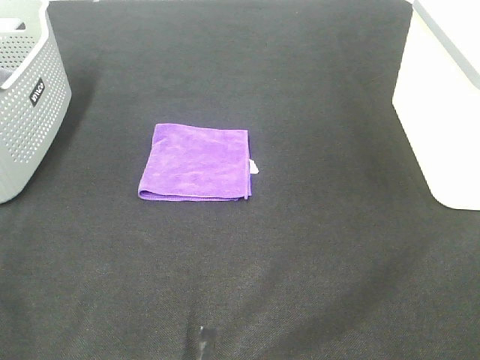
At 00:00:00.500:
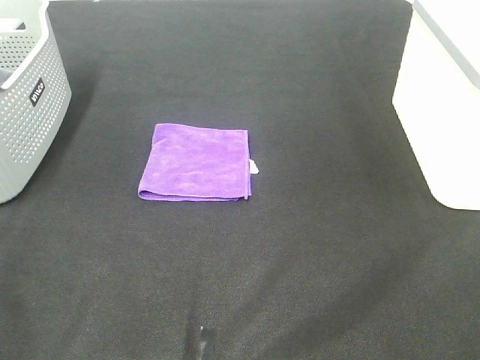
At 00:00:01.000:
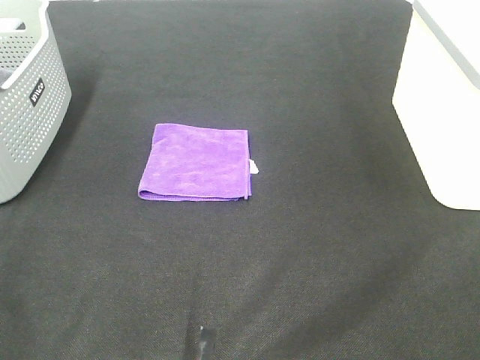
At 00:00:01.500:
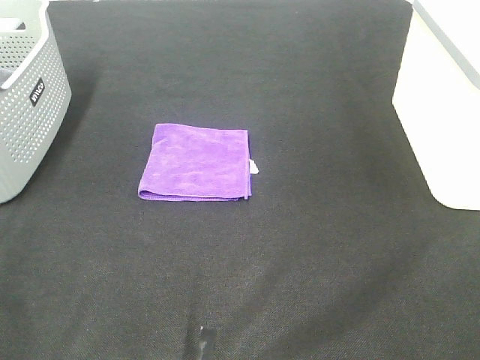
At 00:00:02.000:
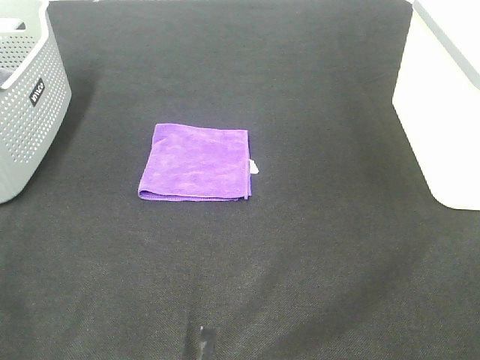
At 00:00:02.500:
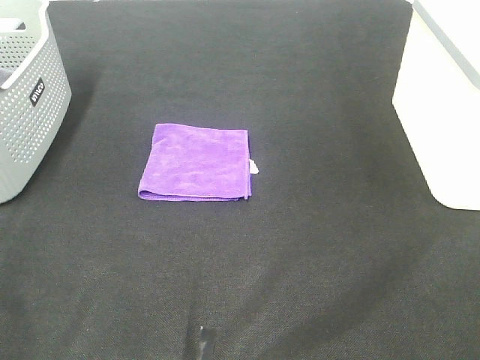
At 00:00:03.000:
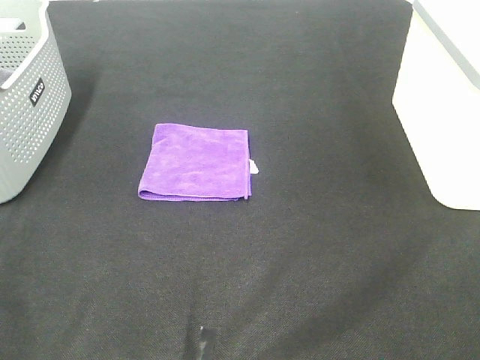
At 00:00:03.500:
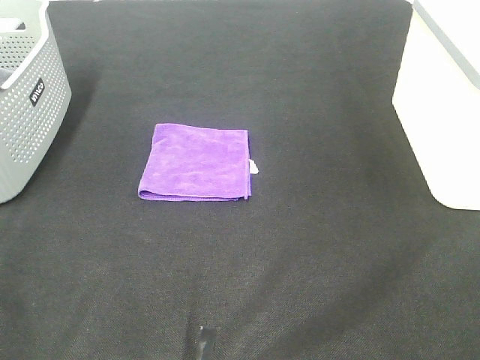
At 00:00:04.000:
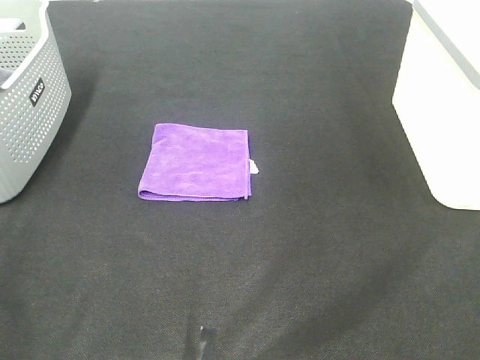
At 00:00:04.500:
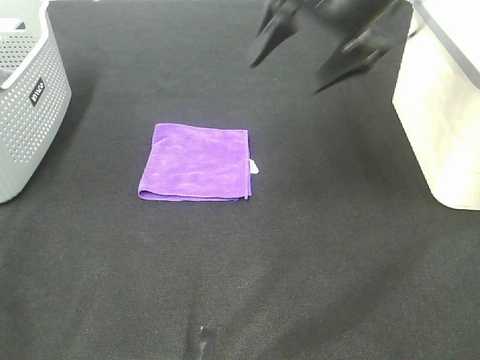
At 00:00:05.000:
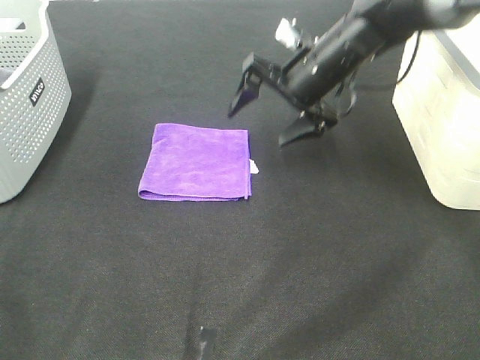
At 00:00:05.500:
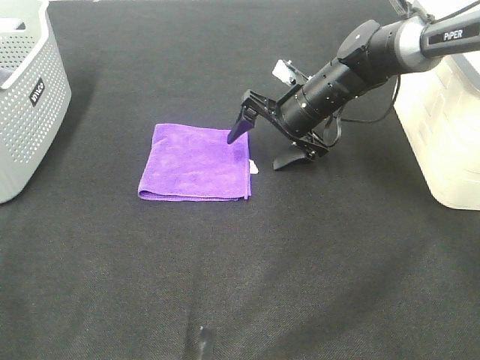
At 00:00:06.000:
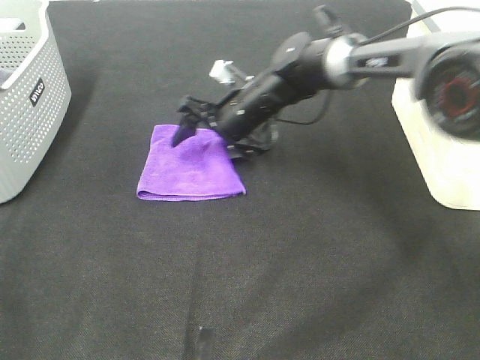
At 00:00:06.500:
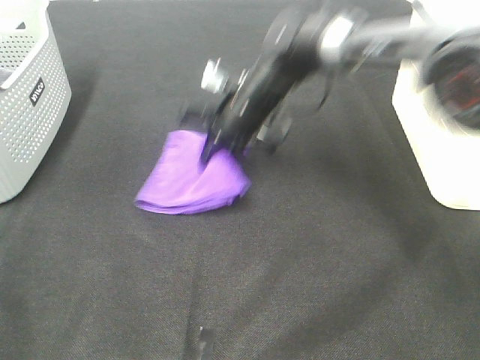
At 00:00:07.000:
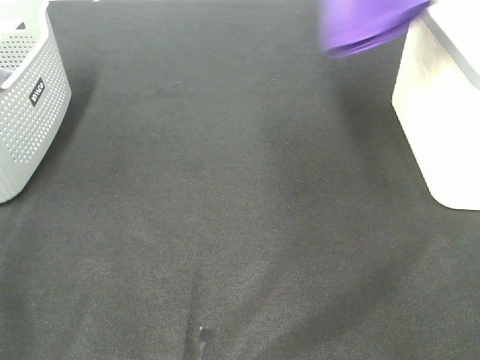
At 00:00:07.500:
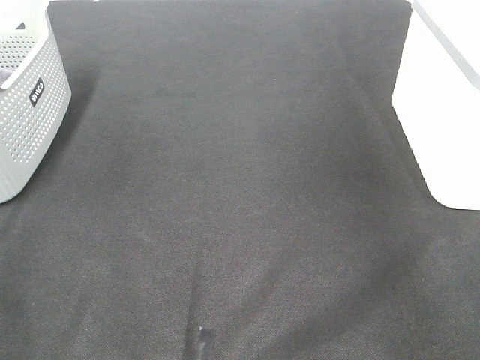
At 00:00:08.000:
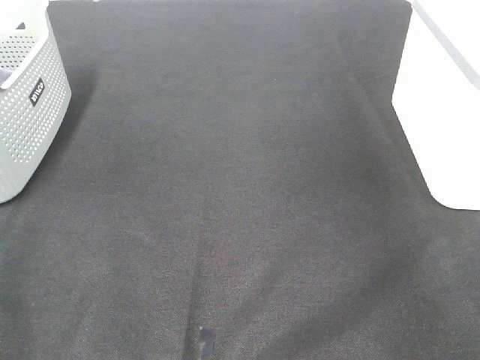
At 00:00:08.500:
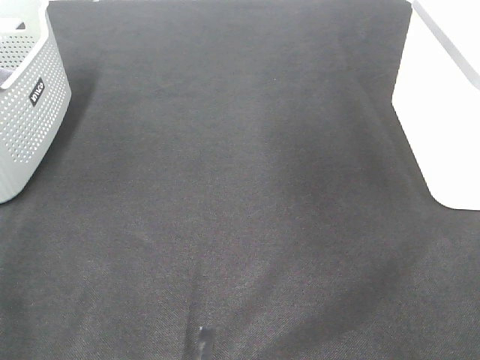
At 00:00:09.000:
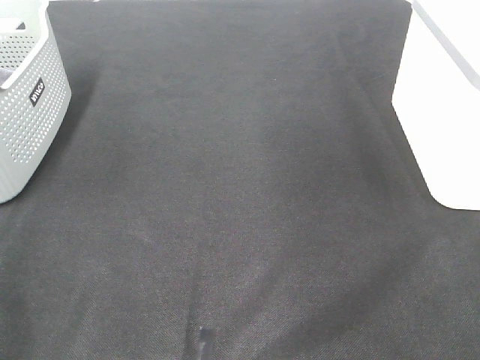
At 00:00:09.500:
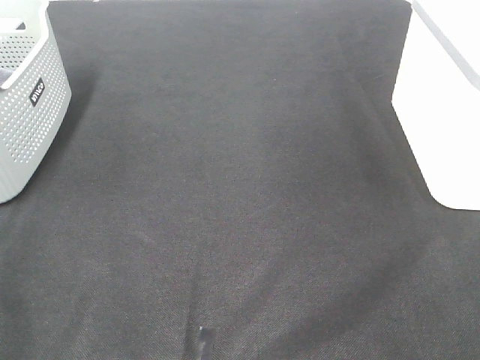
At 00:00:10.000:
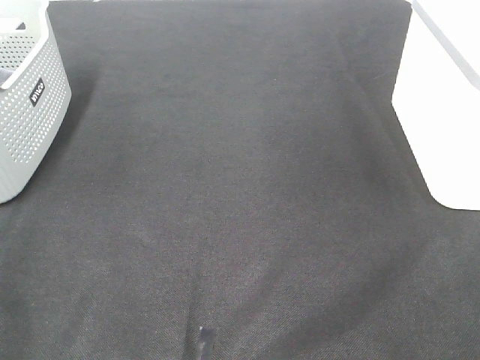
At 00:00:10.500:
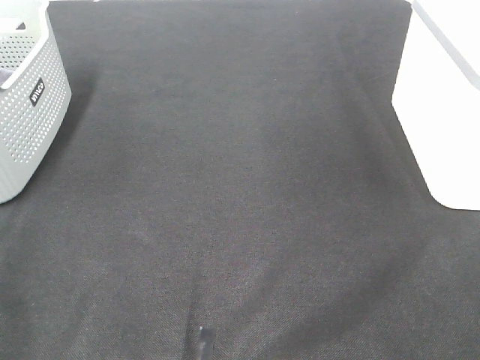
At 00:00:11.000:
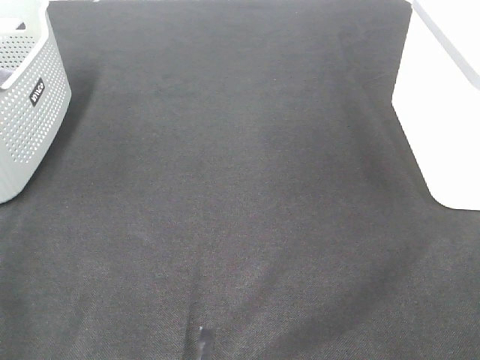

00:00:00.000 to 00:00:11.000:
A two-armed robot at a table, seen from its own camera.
Step, 00:00:00.000 to 00:00:06.000: Right hand: grab the folded purple towel.
Step, 00:00:06.500 to 00:00:07.500: Right hand: place the purple towel in right basket.
00:00:00.000 to 00:00:02.000: Both grippers stay put.
00:00:03.500 to 00:00:05.500: The right gripper moves forward, downward and to the left, some 50 cm.
00:00:05.500 to 00:00:07.500: The right gripper goes approximately 40 cm to the right and upward, and closes up.

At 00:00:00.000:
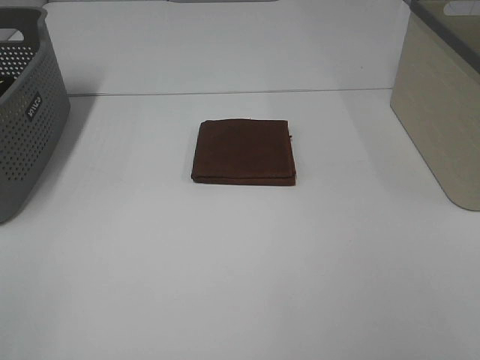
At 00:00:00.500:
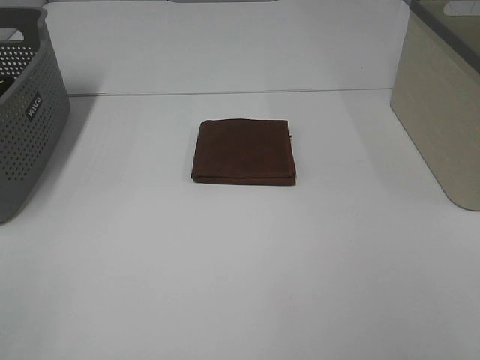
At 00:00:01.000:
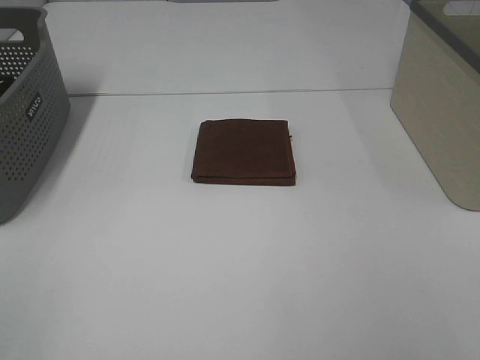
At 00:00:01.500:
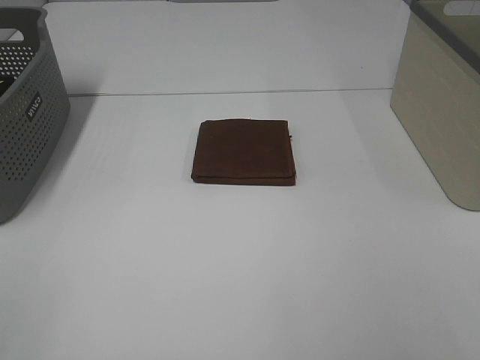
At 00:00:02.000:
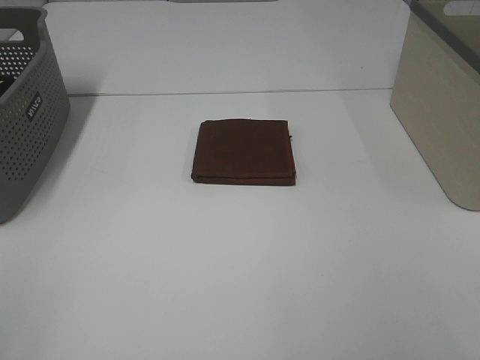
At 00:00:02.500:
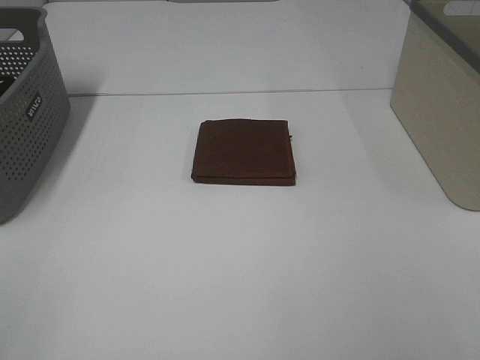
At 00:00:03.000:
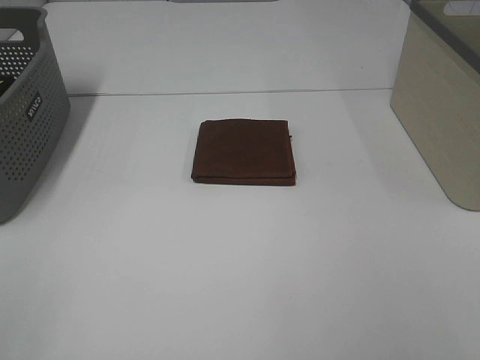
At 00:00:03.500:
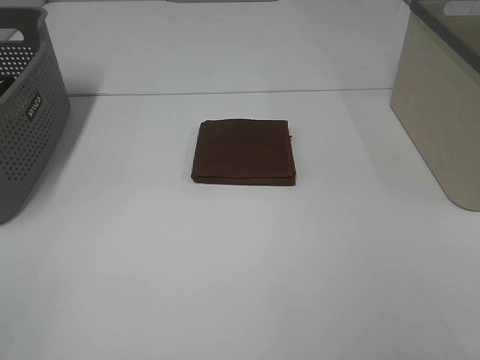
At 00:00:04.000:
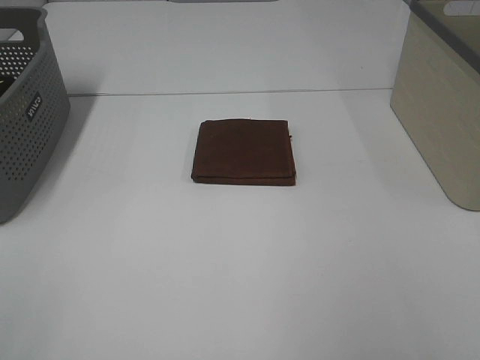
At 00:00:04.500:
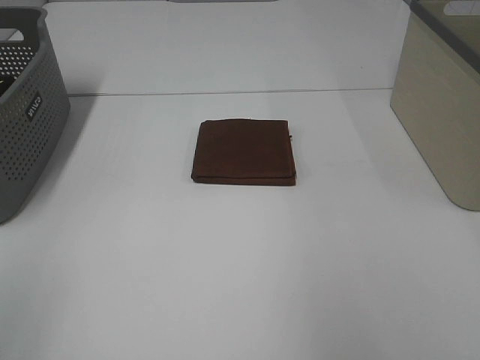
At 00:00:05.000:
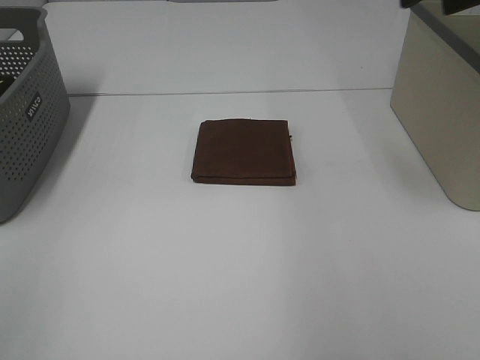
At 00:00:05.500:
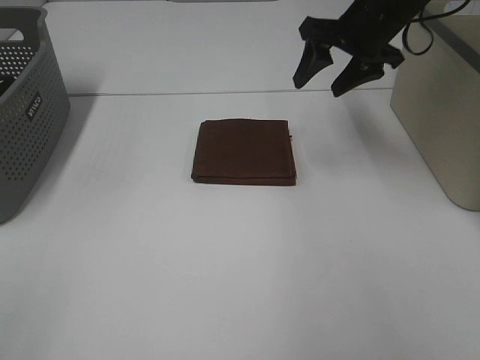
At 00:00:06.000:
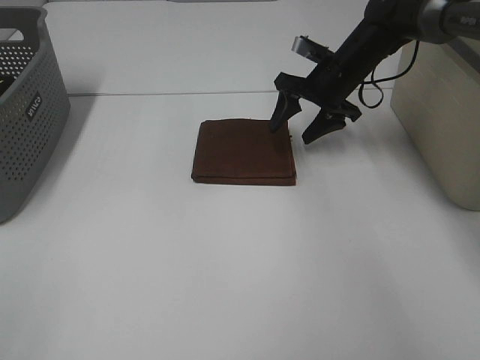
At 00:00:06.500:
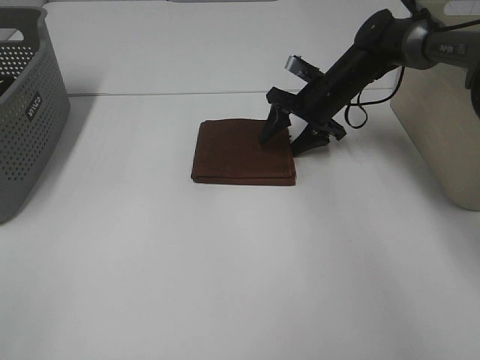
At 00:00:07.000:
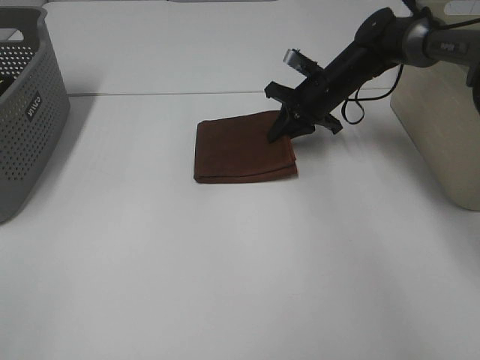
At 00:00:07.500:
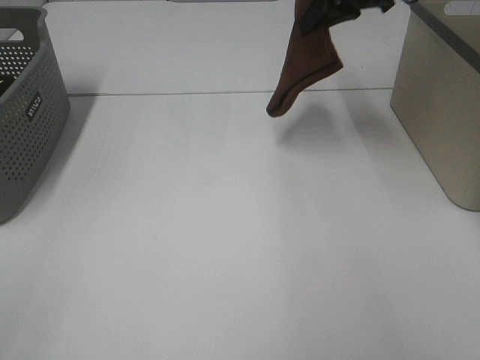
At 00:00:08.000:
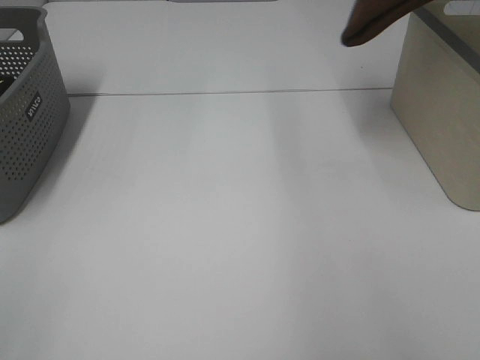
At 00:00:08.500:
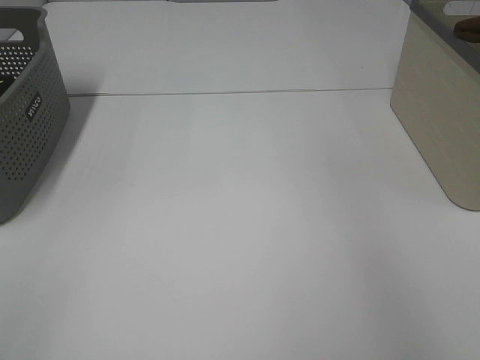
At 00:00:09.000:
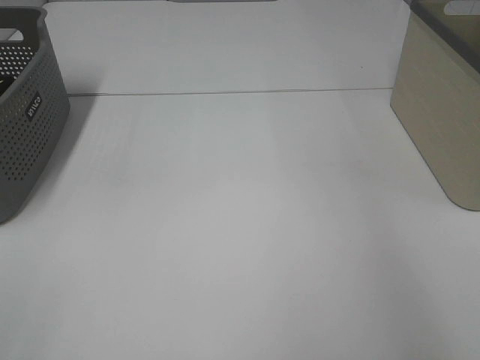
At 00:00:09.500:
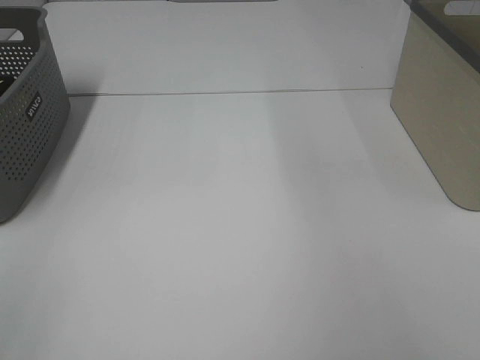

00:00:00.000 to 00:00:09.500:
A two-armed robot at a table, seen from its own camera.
Step, 00:00:00.000 to 00:00:06.500: Right hand: grab the folded brown towel.
Step, 00:00:07.000 to 00:00:09.000: Right hand: place the brown towel in right basket.
00:00:00.000 to 00:00:02.000: Both grippers stay put.
00:00:04.000 to 00:00:05.500: The right gripper is displaced forward by approximately 40 cm.
00:00:05.500 to 00:00:07.500: The right gripper reaches some 15 cm downward, then returns, and closes up.
00:00:07.500 to 00:00:09.500: The right gripper is displaced to the right, upward and backward by some 15 cm, and opens up.

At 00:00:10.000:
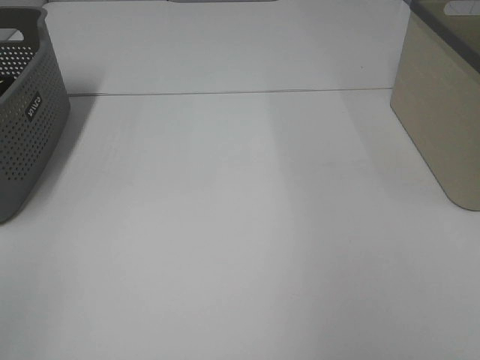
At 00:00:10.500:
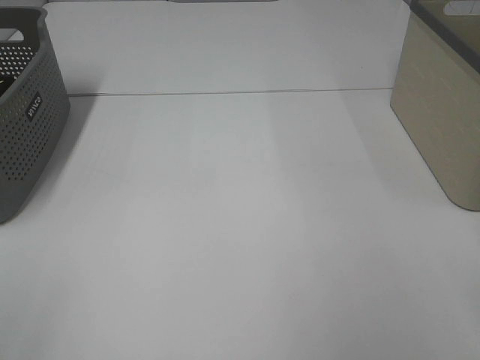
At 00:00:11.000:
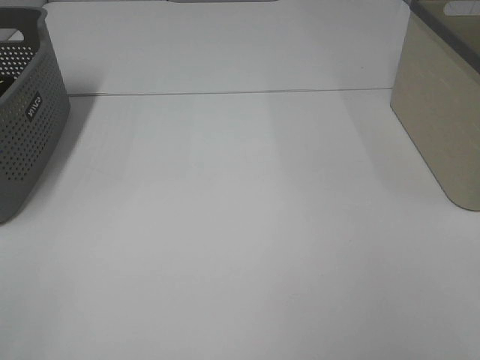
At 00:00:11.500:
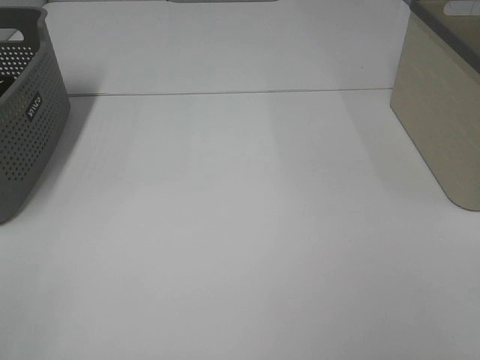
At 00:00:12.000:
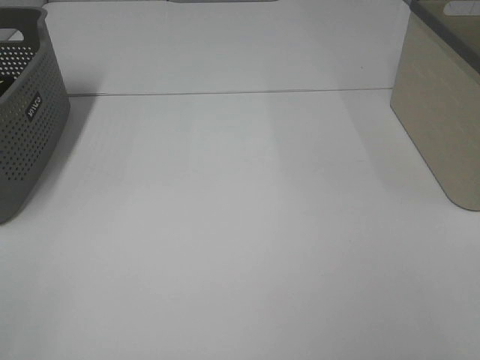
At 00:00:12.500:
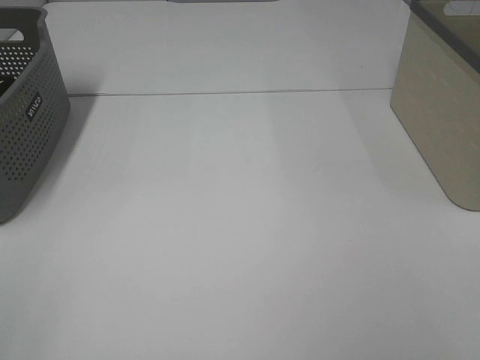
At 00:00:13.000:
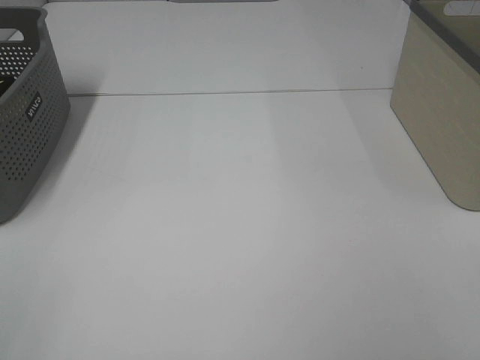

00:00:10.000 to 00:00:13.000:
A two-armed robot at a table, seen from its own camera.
00:00:11.500 to 00:00:13.000: Both grippers stay about where they are.
